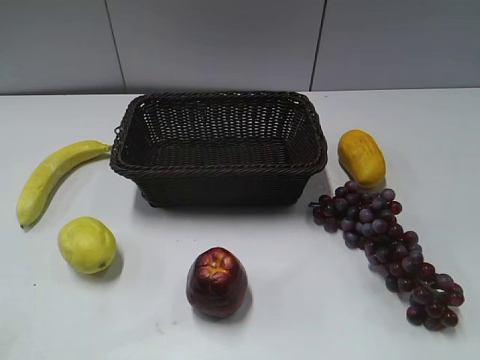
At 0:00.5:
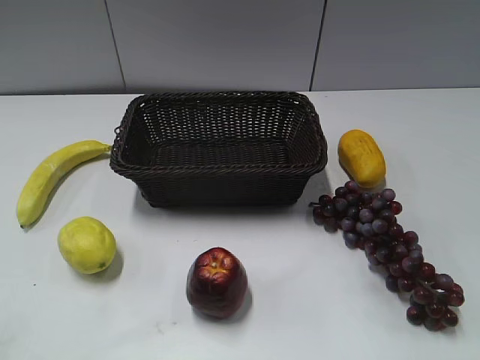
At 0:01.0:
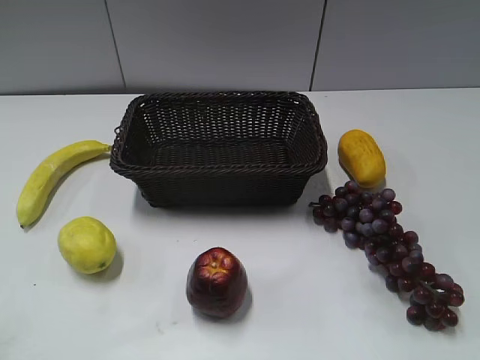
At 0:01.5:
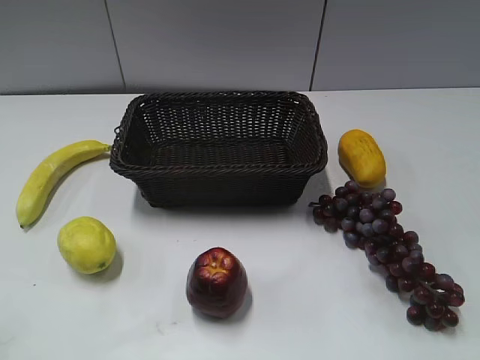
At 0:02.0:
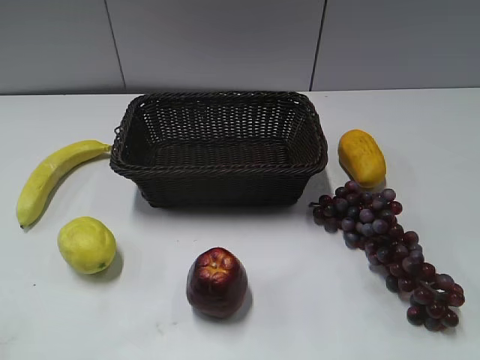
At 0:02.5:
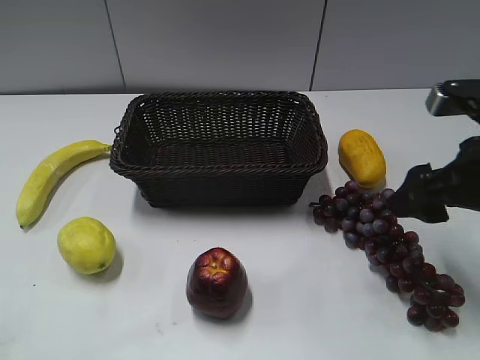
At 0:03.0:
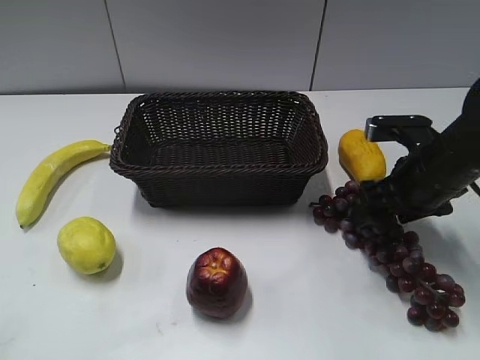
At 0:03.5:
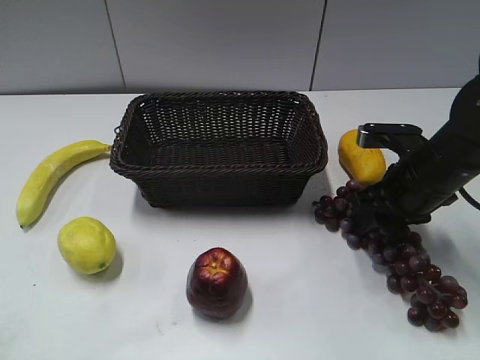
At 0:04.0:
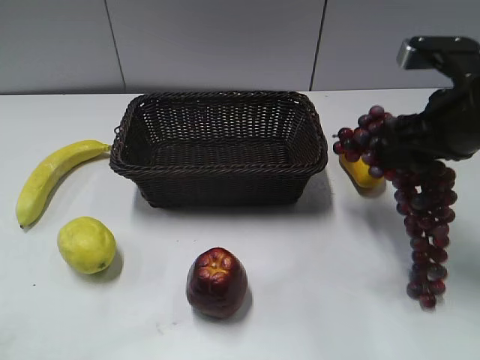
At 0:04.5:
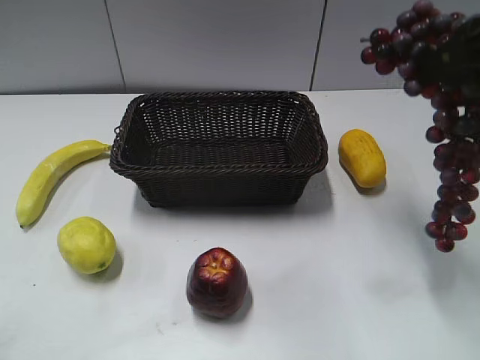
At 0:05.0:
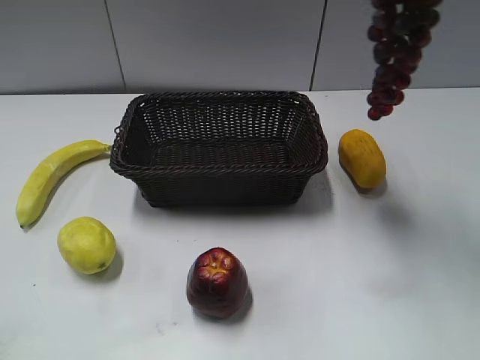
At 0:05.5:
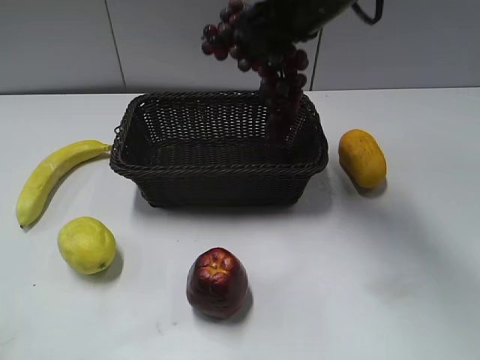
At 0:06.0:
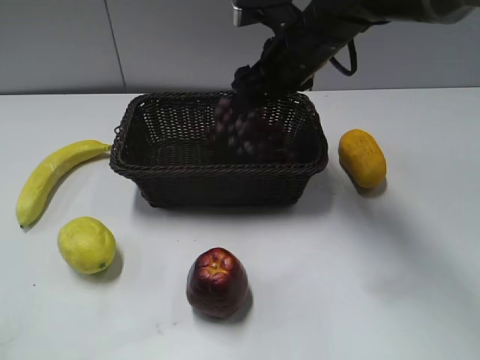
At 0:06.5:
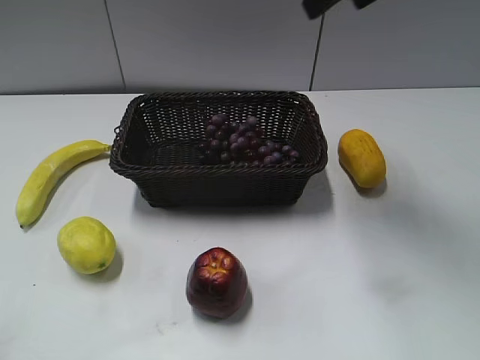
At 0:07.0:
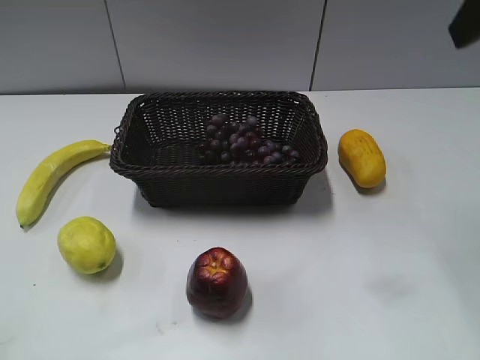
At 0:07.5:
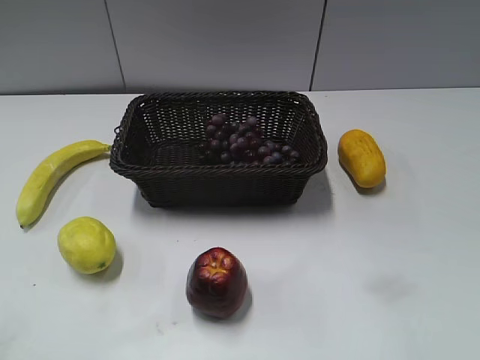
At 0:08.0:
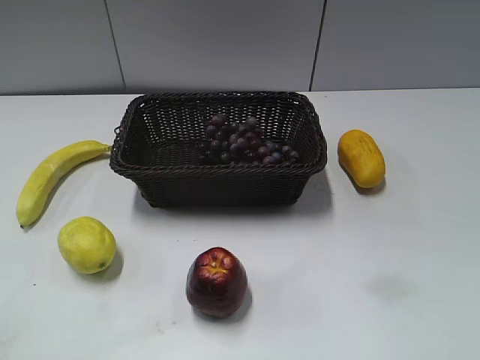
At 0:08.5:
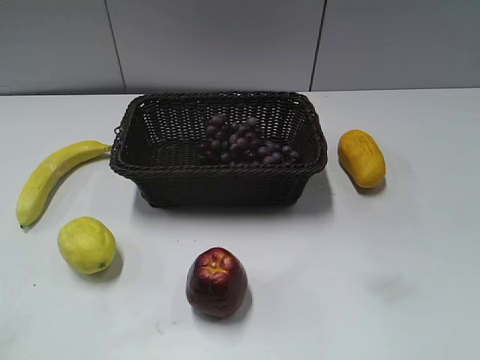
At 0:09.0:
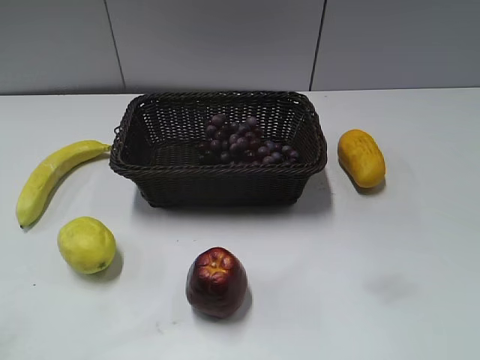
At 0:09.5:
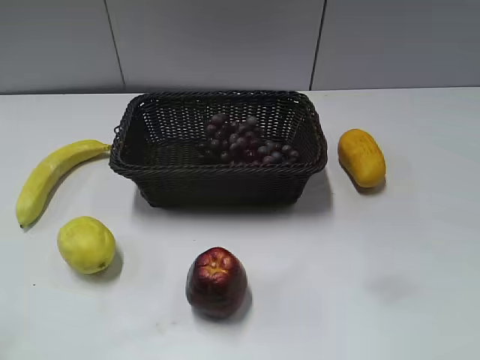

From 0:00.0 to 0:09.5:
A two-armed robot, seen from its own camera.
Step, from 0:02.5 to 0:03.0: Grasp the grape with right gripper.
Step, from 0:03.5 to 0:06.0: Place the grape in the basket with right gripper.
From 0:02.0 to 0:04.0: The right gripper travels forward, to the left and downward by approximately 15 cm, and closes up.
From 0:04.0 to 0:05.5: The right gripper goes approximately 20 cm to the left and forward, and travels upward and back again, roughly 15 cm each way.
From 0:05.5 to 0:07.5: The right gripper moves backward and to the right, some 35 cm, and opens up.

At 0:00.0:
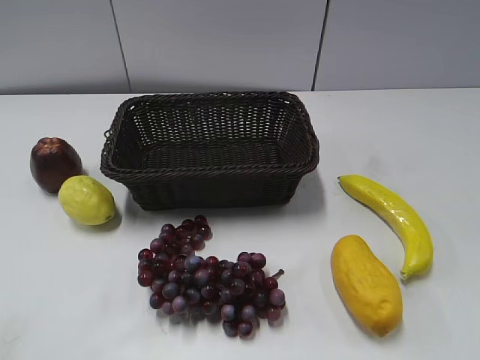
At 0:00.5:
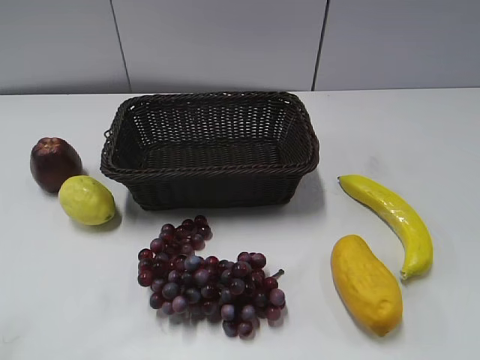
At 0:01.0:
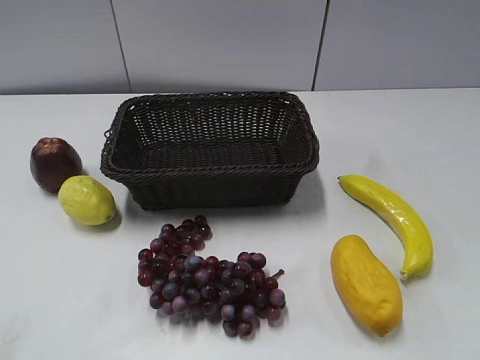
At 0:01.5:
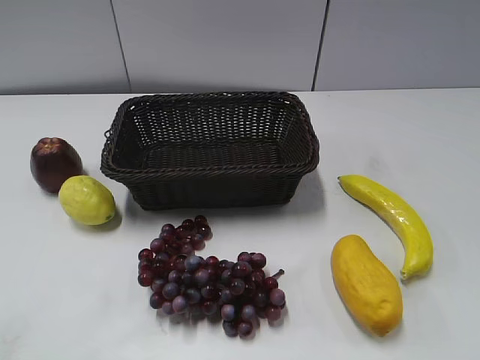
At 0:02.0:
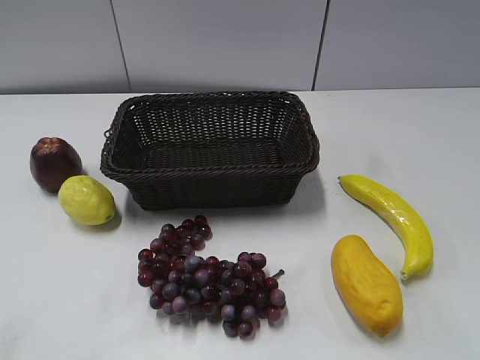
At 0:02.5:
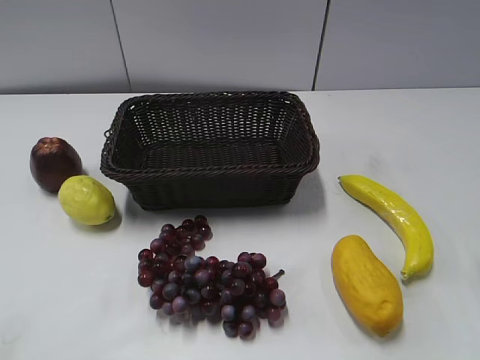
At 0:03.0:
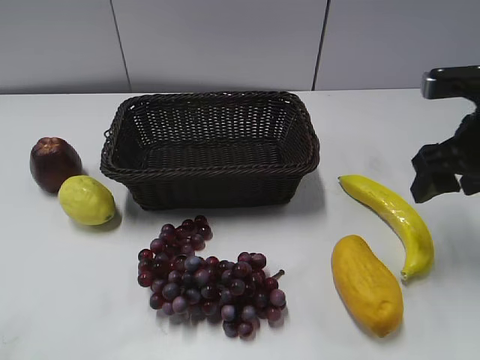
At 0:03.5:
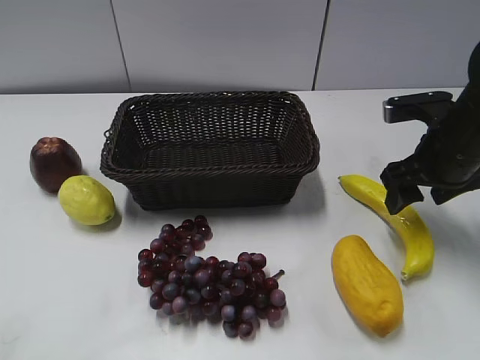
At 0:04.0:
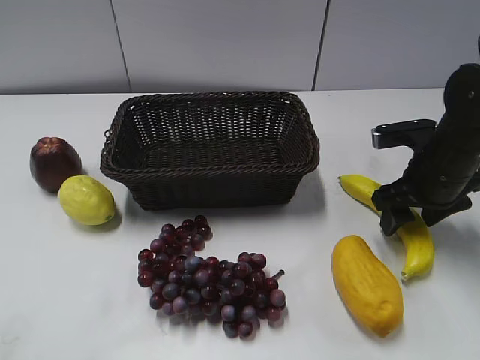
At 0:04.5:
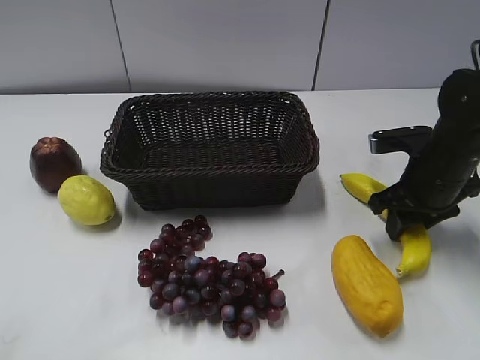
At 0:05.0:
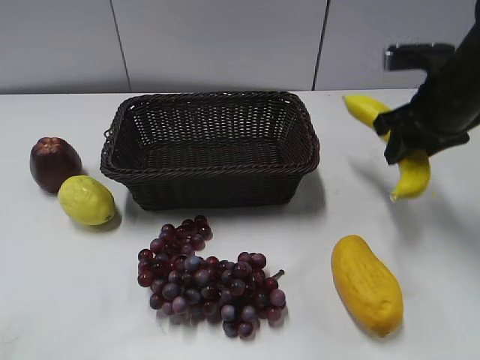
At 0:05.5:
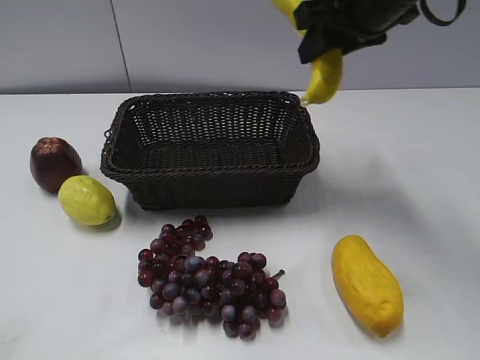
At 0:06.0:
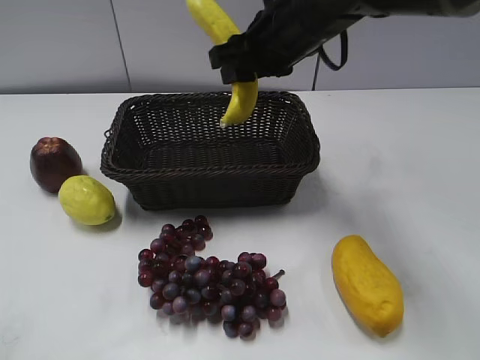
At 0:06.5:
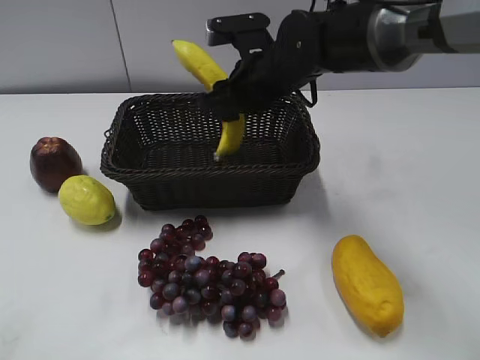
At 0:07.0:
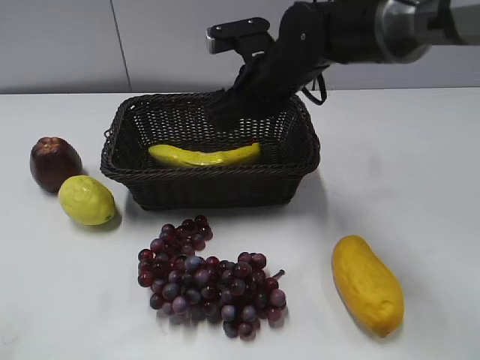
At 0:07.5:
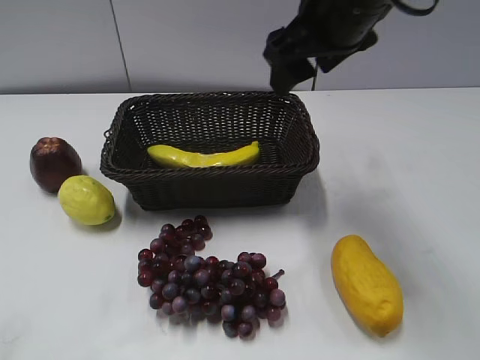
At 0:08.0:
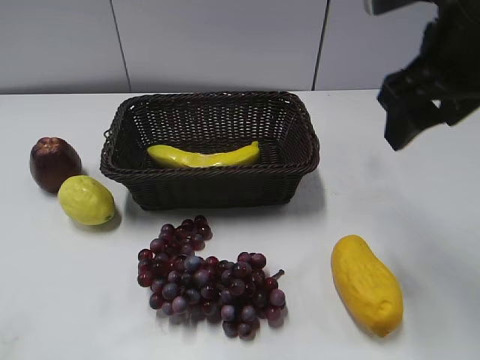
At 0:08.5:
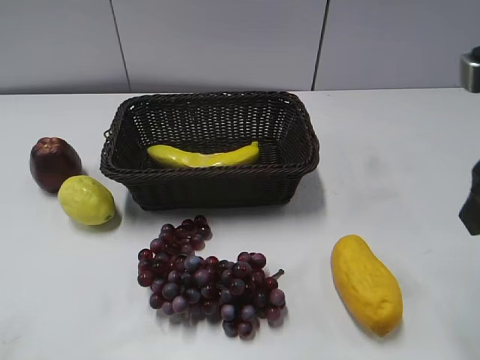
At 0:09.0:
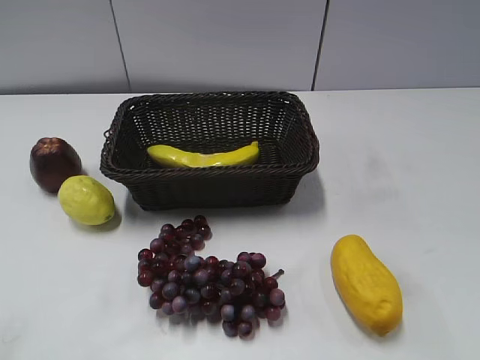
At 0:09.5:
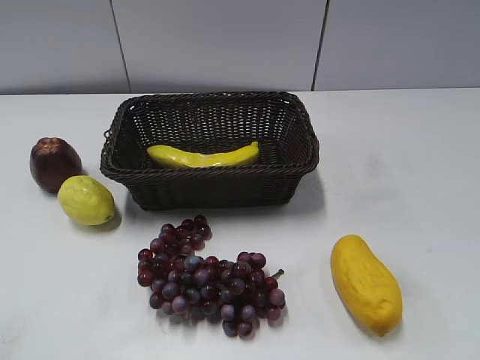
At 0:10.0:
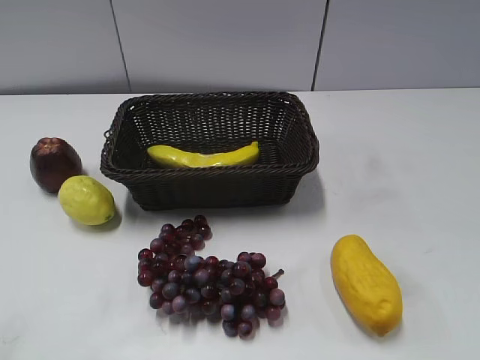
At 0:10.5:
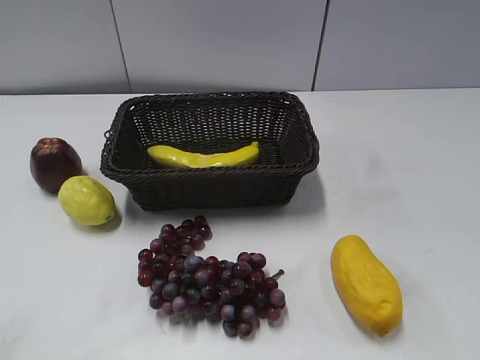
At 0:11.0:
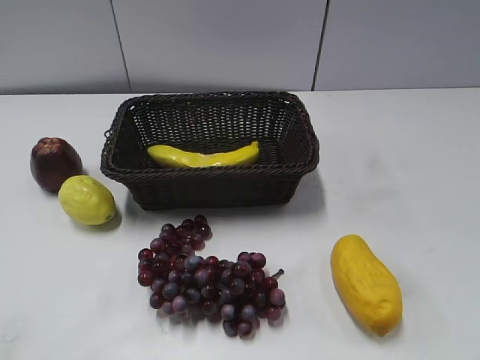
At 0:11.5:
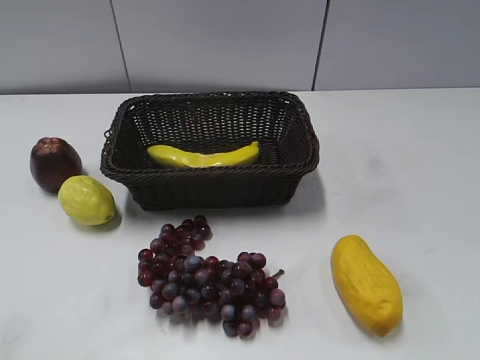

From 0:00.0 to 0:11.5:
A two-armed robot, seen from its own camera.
Step, from 0:03.0 to 0:04.0: Grasp the banana with right gripper.
Step, from 0:04.5 to 0:06.5: Place the banana in the basket with right gripper.
From 0:02.0 to 0:04.0: The right gripper moves forward and downward, about 30 cm.
From 0:04.0 to 0:06.0: The right gripper moves to the left and upward, approximately 20 cm, and closes.
From 0:06.0 to 0:07.5: The right gripper shifts some 10 cm upward and backward, and opens up.
From 0:07.5 to 0:09.5: The right gripper heads backward and to the right, covering roughly 35 cm.

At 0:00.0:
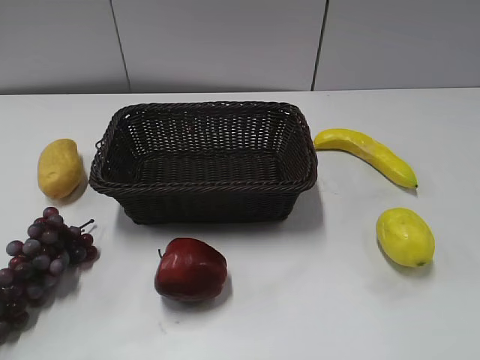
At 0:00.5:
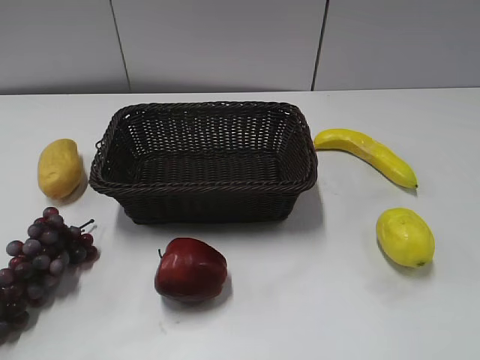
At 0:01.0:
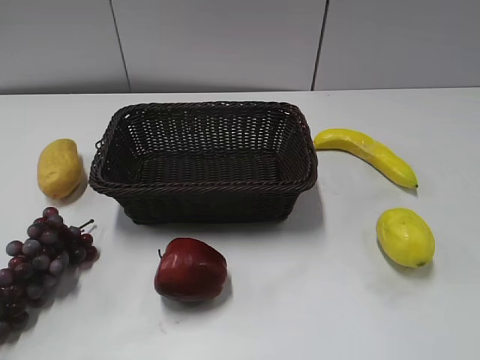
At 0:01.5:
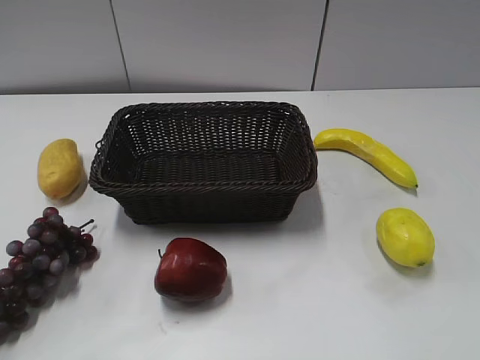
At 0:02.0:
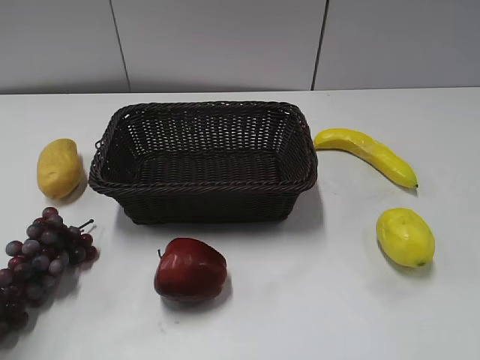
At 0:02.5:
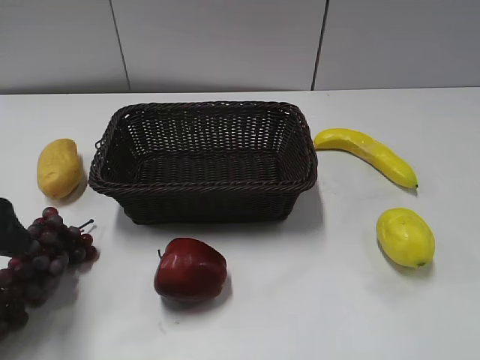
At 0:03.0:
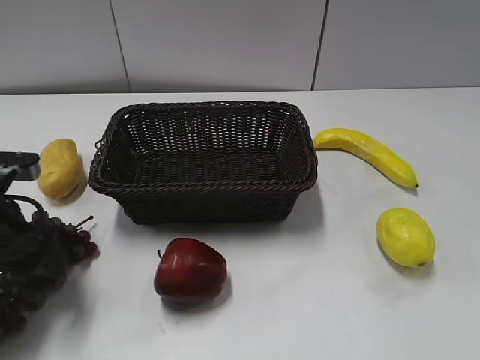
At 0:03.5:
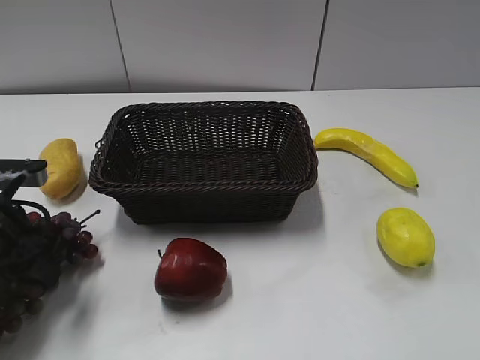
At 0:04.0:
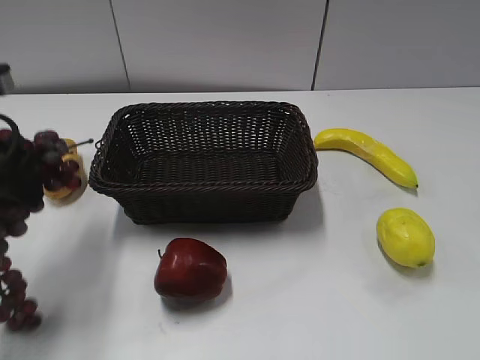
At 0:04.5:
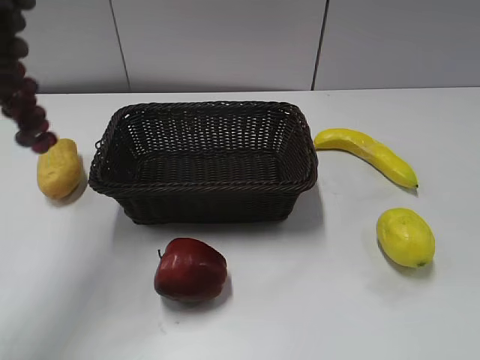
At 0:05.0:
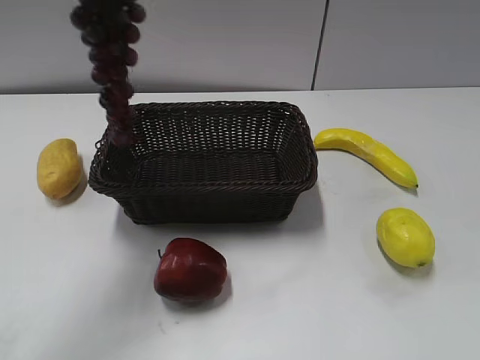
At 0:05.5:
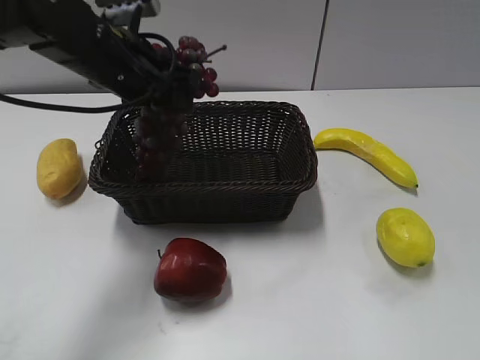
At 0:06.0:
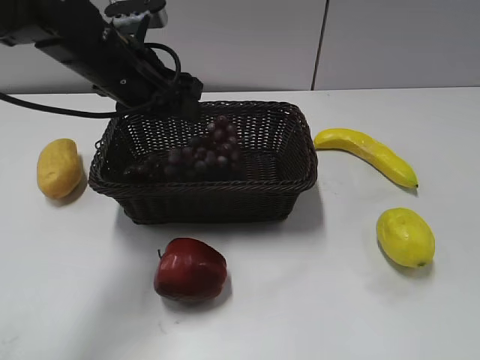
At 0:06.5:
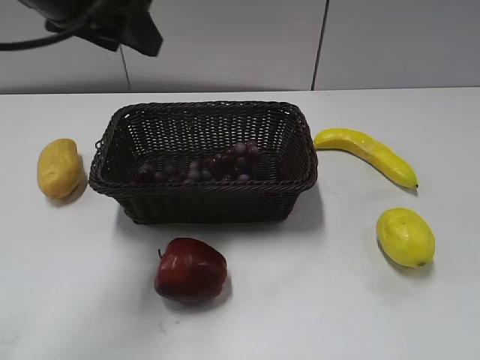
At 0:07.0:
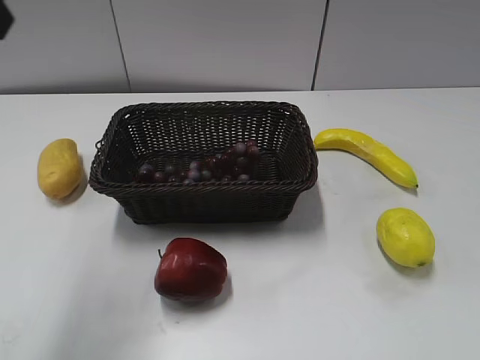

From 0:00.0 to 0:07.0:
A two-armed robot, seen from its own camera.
Step, from 0:02.5 to 0:03.5: Grasp the grape with left gripper.
Step, from 0:04.0 to 0:06.0: Place the grape in the basket with left gripper.
From 0:02.0 to 0:03.5: The left gripper shifts some 20 cm downward and forward, and closes.
From 0:03.5 to 0:05.0: The left gripper heads upward and to the right, covering some 25 cm.
From 0:05.0 to 0:07.0: The left gripper heads backward and to the left, covering some 10 cm, moves some 10 cm downward and comes back, and opens up.
